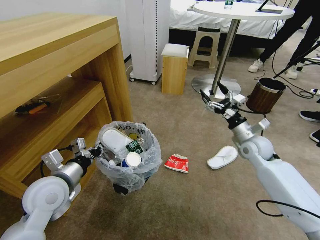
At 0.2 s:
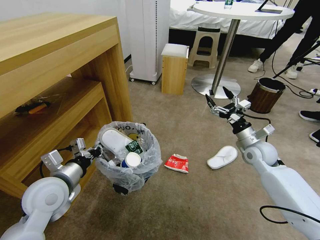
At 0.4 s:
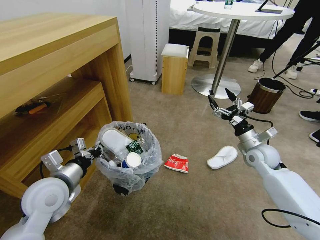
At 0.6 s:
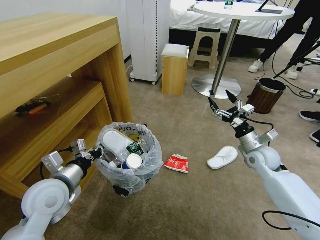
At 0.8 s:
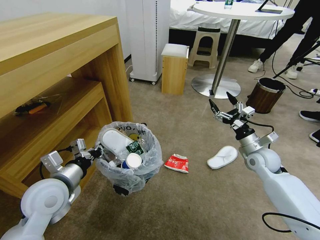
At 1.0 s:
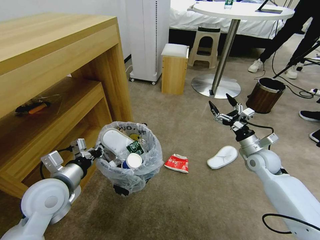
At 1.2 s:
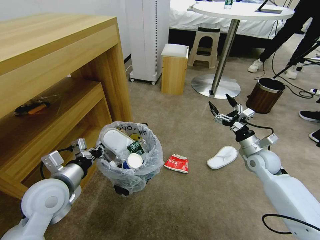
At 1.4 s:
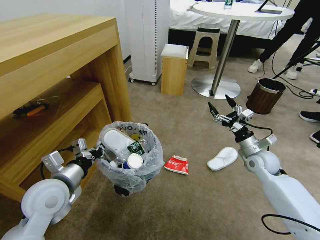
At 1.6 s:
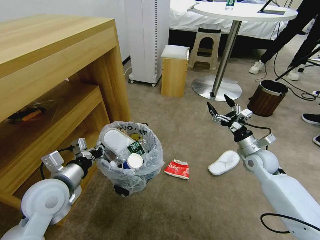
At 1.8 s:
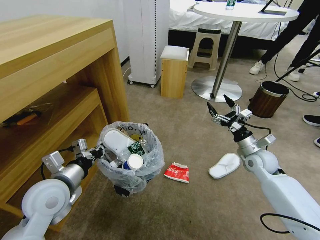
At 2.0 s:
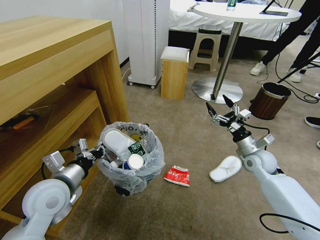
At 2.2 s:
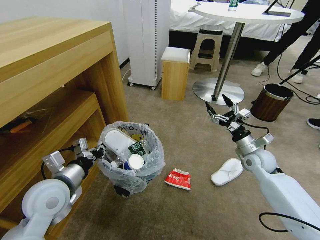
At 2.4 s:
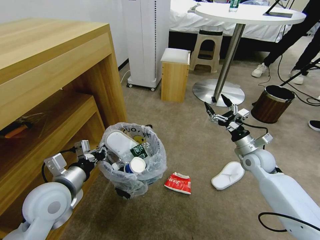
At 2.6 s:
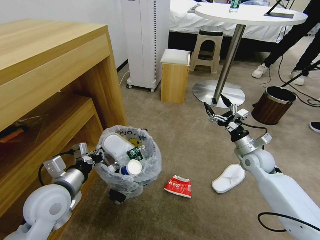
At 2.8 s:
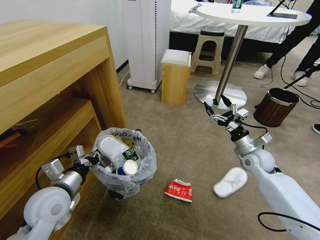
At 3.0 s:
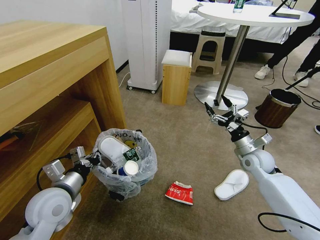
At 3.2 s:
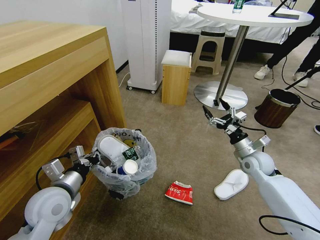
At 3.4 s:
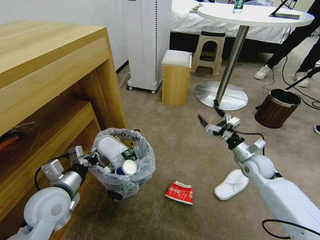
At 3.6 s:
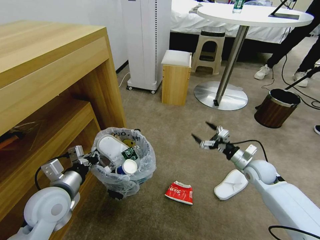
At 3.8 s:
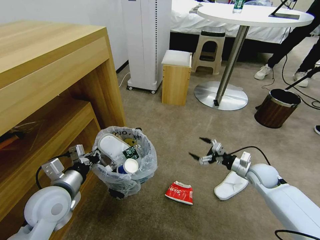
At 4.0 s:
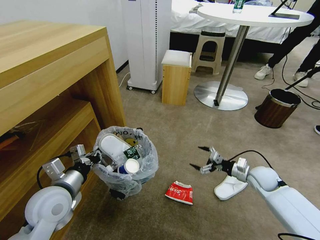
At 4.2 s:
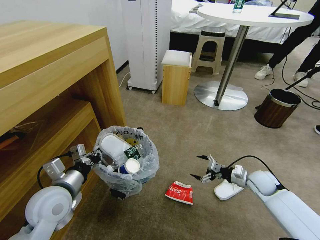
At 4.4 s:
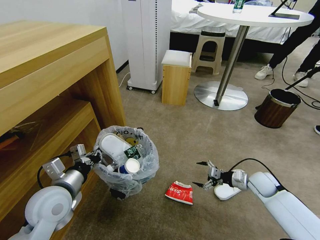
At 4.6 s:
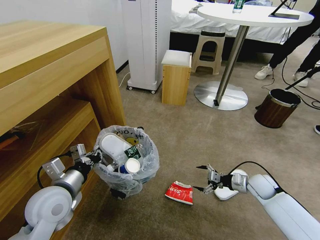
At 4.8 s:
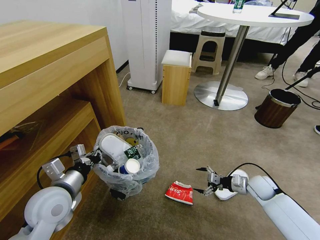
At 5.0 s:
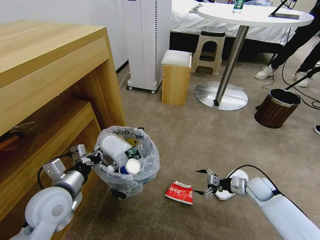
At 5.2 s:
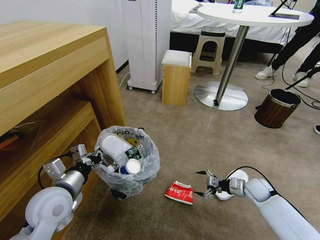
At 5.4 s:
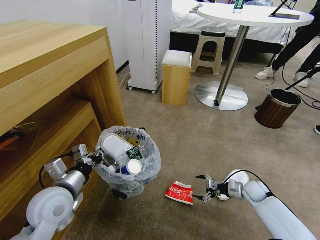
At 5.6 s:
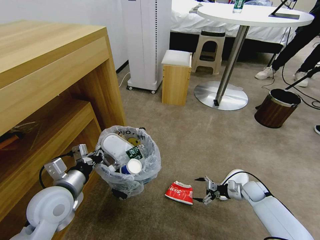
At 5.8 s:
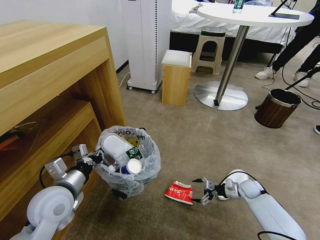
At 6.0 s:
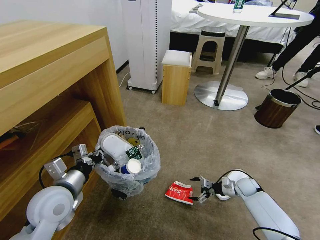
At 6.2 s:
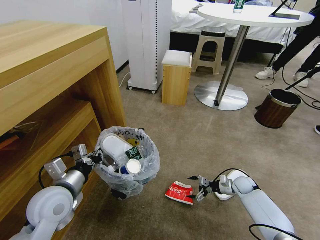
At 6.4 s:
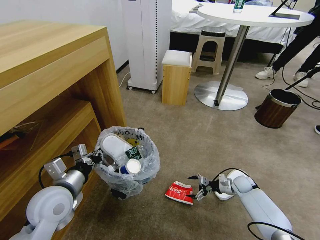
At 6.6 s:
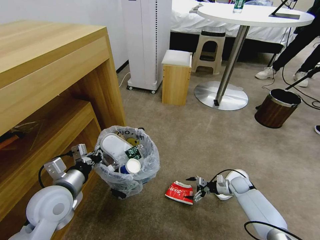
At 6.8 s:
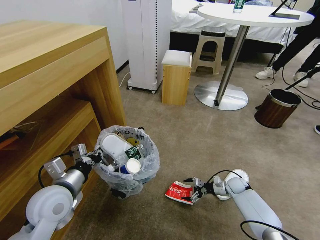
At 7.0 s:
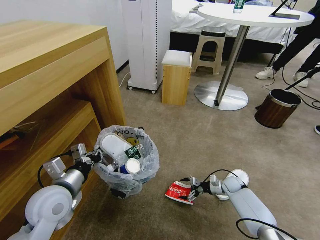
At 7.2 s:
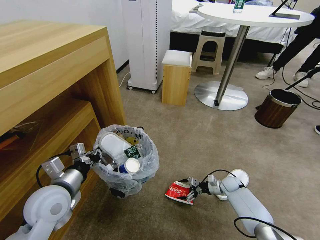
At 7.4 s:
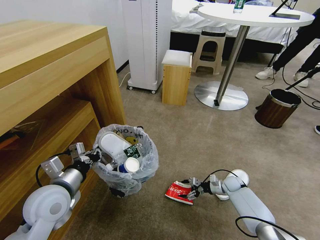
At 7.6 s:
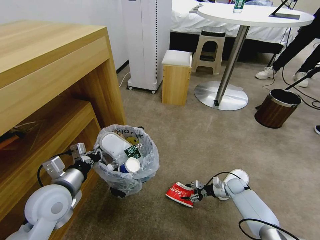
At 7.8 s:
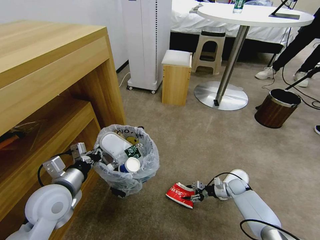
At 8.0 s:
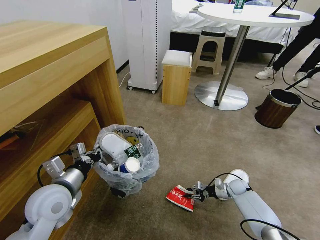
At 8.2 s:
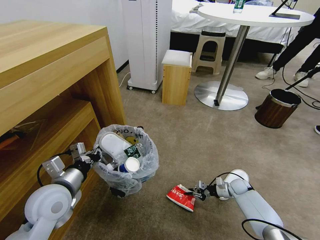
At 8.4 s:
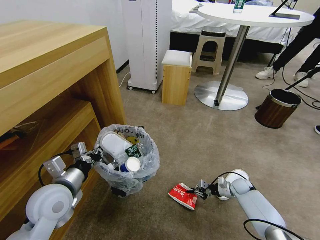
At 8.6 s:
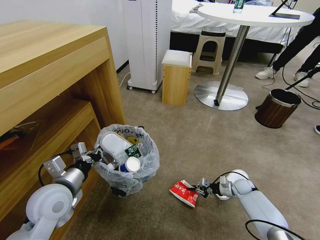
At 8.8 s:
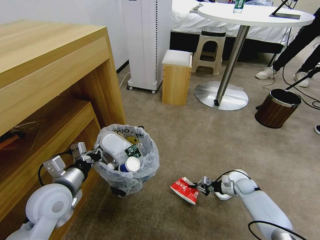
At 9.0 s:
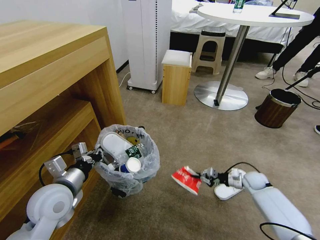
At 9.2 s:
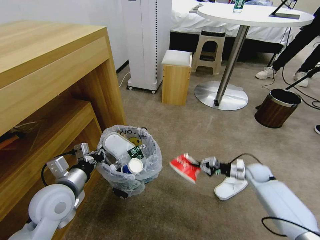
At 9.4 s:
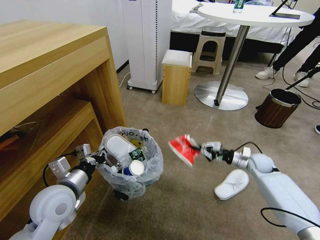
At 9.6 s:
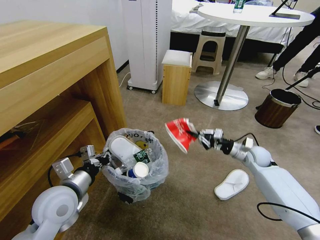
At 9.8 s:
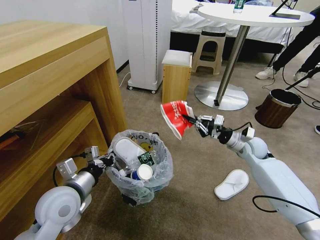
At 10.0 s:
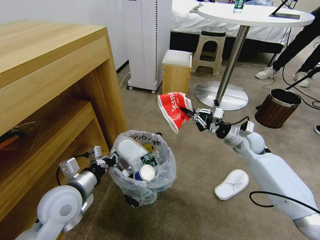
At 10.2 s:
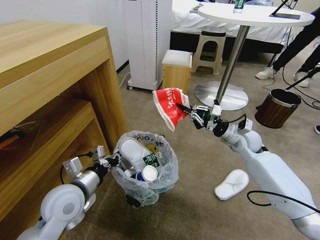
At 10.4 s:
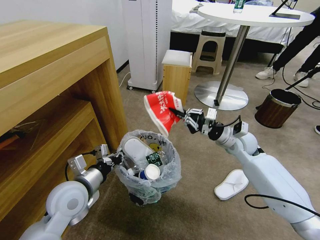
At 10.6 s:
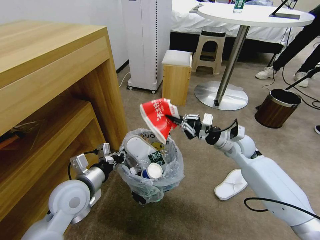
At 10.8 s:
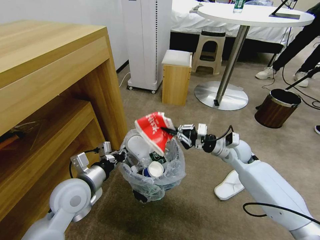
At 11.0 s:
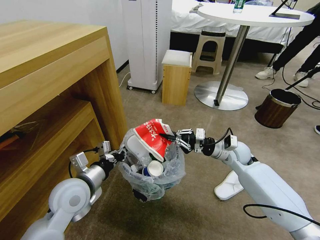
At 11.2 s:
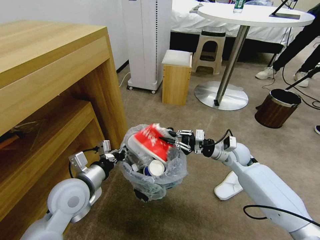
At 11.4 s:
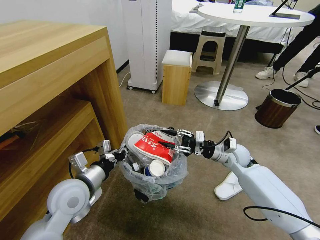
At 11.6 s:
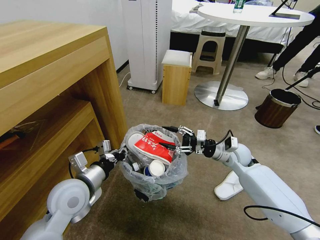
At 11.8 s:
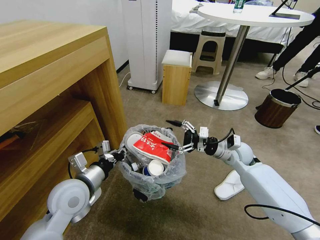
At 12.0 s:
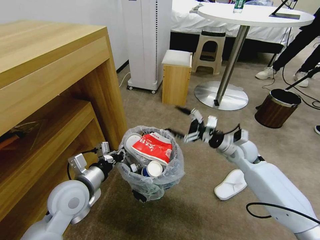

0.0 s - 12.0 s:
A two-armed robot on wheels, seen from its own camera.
Task of the whole recording: Pick up the trash bin and place the garbage on the floor into it.
0.0 s - 1.6 s: The right gripper changes place by approximately 5 cm.
3.0 s - 4.4 s: The right gripper goes approximately 10 cm downward.
4.4 s - 6.0 s: The right gripper goes some 10 cm downward.
6.0 s - 7.6 s: The right gripper closes.
7.6 s - 9.0 s: The right gripper heads upward, covering about 10 cm, and closes its fingers.
9.0 s - 10.4 s: The right gripper shifts roughly 25 cm upward and to the left.
10.4 s - 12.0 s: The right gripper opens.

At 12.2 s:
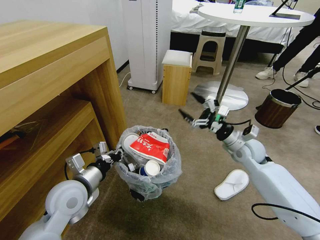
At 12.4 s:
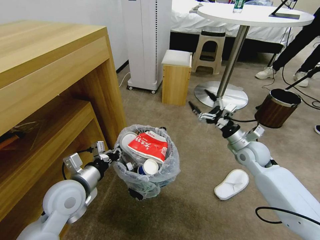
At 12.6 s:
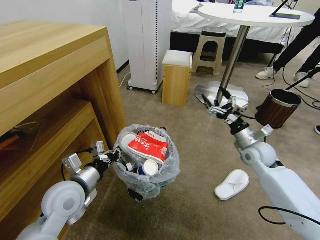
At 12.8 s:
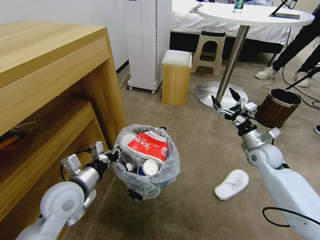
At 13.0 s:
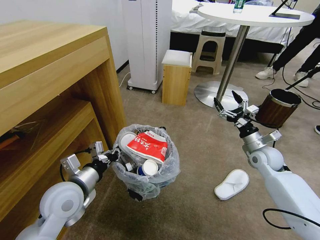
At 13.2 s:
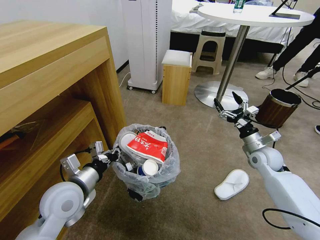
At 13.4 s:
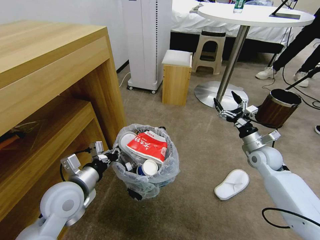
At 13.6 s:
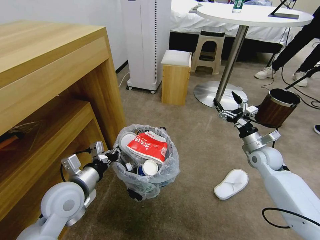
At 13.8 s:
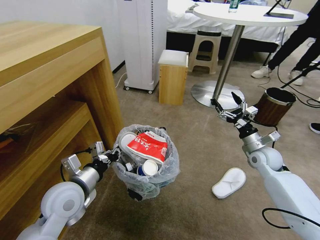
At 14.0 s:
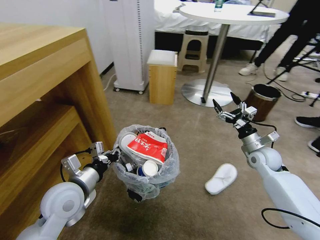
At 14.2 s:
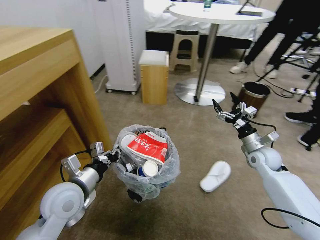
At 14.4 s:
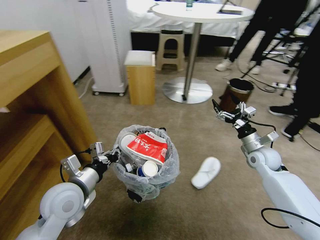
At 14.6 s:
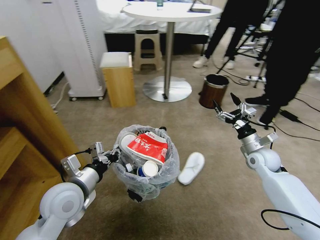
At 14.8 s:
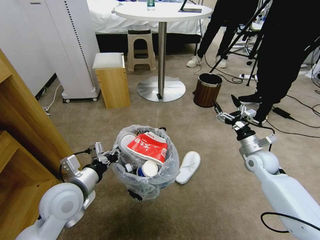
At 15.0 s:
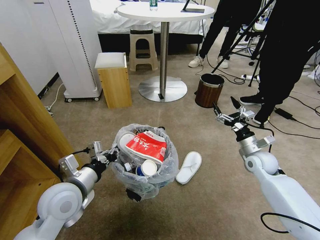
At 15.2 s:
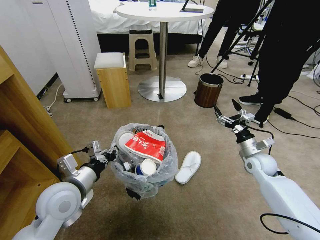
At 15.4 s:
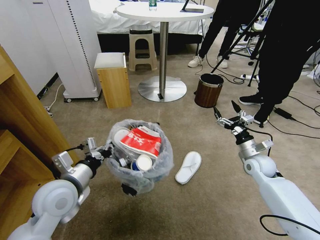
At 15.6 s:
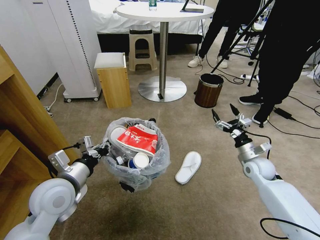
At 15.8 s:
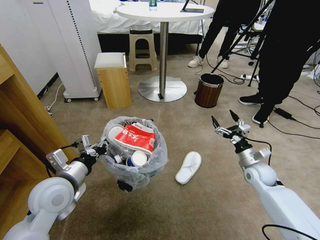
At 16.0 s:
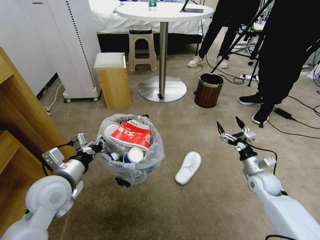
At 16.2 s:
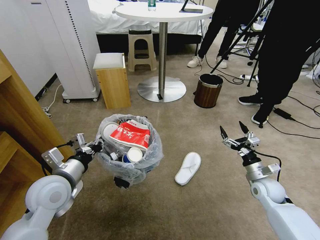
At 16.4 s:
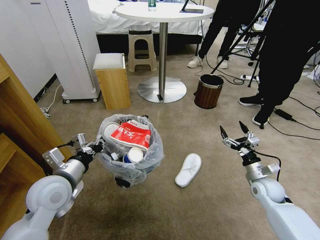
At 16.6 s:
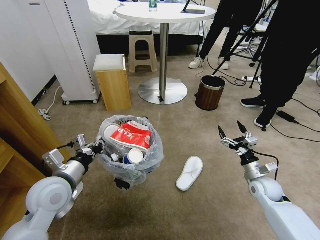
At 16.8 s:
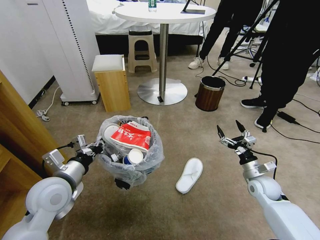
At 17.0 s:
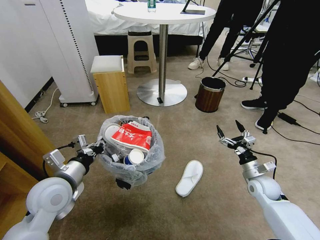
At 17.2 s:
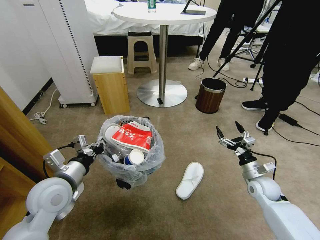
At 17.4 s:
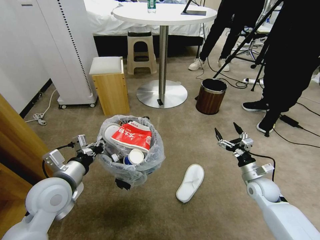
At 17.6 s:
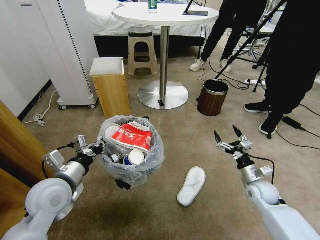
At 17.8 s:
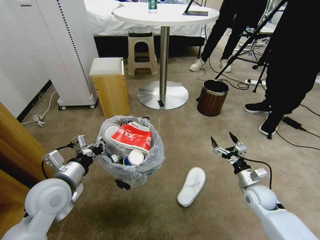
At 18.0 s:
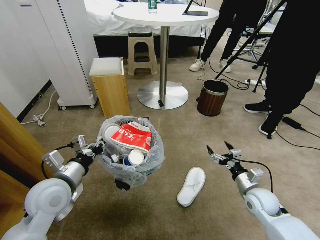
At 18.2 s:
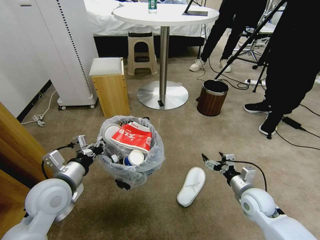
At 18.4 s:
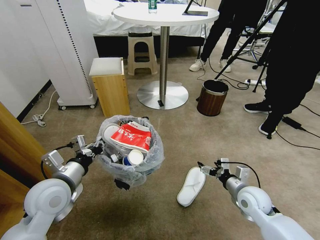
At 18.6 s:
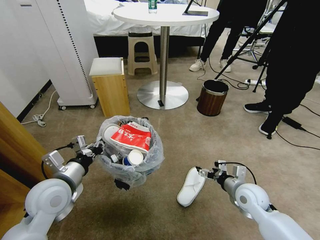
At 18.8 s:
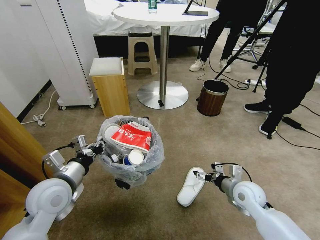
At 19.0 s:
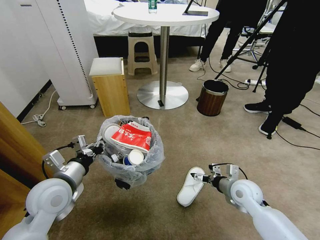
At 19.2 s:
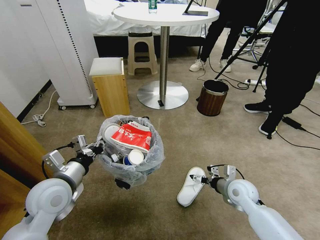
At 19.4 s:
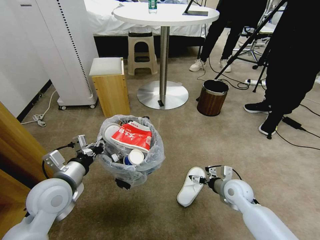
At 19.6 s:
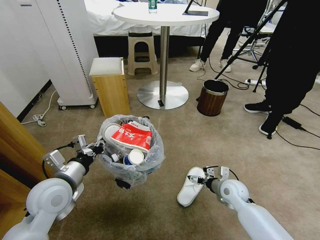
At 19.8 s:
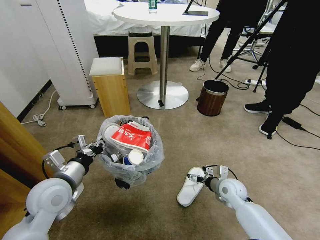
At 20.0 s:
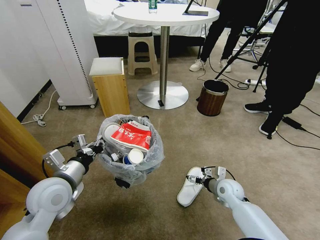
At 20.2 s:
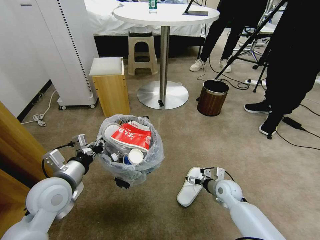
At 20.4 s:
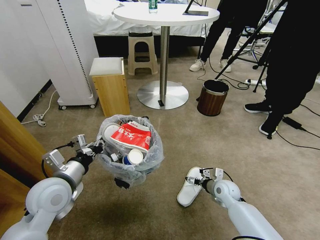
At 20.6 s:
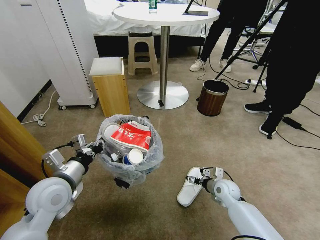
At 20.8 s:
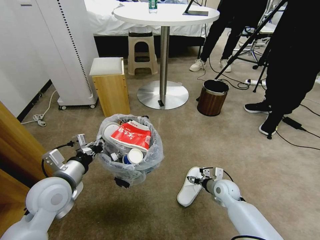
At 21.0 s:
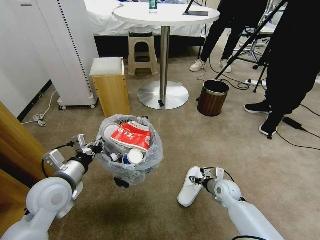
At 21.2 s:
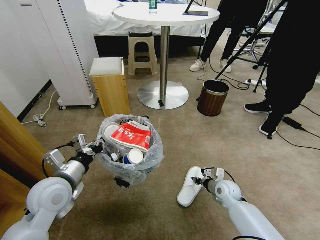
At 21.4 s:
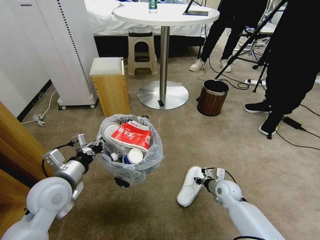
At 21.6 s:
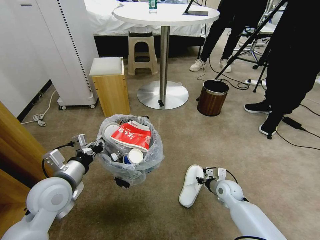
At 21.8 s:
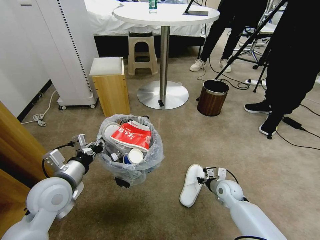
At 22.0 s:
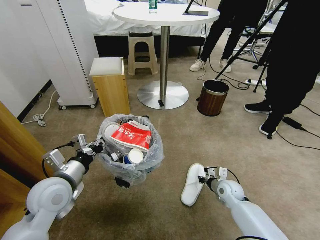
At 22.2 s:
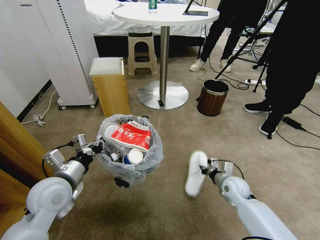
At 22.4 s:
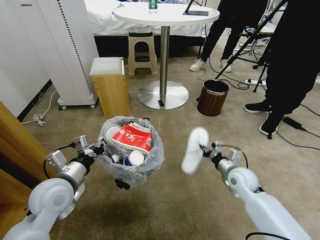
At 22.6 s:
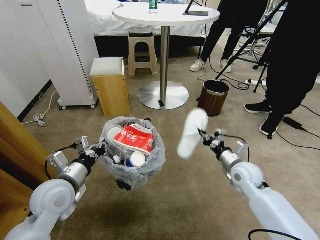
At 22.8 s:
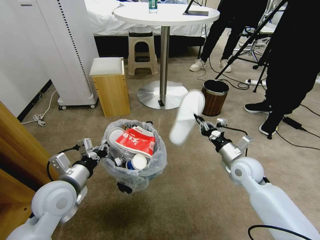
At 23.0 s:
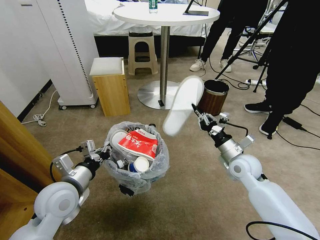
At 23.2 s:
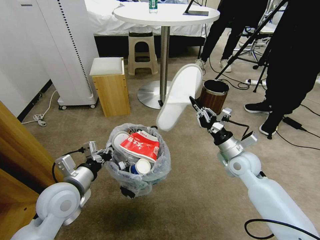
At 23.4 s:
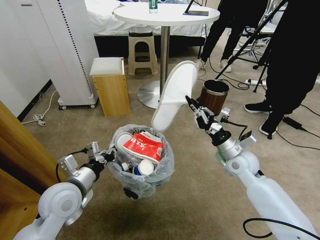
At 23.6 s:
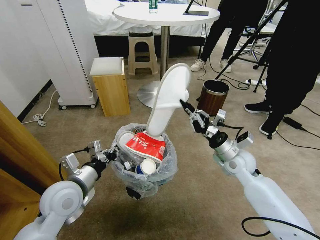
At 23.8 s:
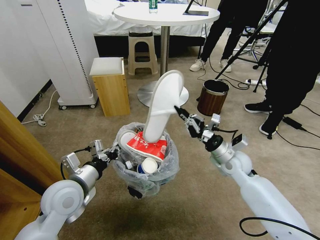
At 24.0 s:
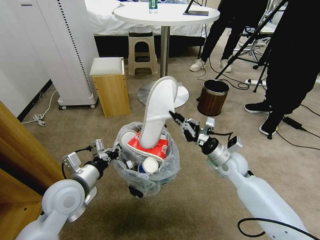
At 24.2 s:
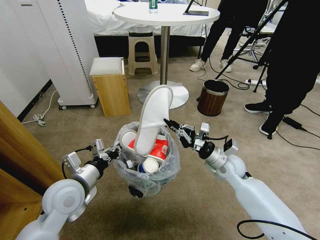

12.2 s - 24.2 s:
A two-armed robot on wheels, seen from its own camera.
Task of the whole recording: Pick up the trash bin and place the garbage on the floor into it.
12.2 s - 13.8 s: The right gripper is displaced to the right by roughly 10 cm.
15.2 s - 16.6 s: The right gripper goes approximately 10 cm backward and downward.
16.6 s - 18.2 s: The right gripper travels to the left and backward by some 10 cm.
18.2 s - 19.8 s: The right gripper travels forward and to the left by roughly 10 cm.
19.8 s - 21.2 s: The right gripper closes up.
21.2 s - 22.6 s: The right gripper heads upward, covering roughly 15 cm.
22.6 s - 24.2 s: The right gripper changes place by roughly 5 cm.
